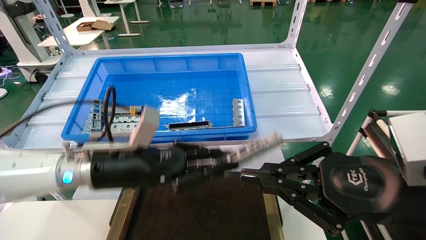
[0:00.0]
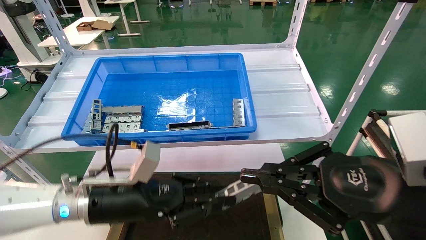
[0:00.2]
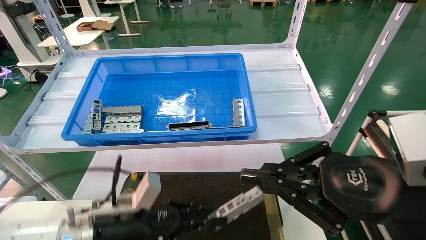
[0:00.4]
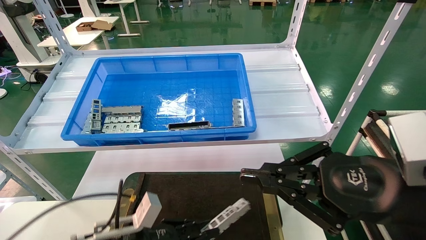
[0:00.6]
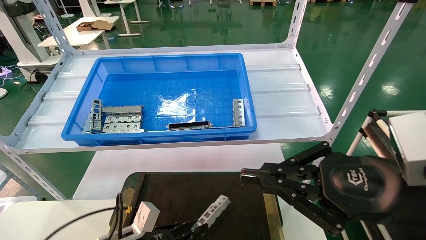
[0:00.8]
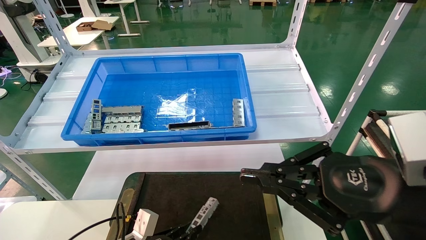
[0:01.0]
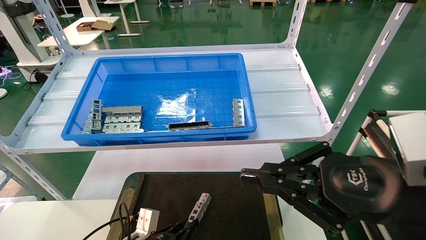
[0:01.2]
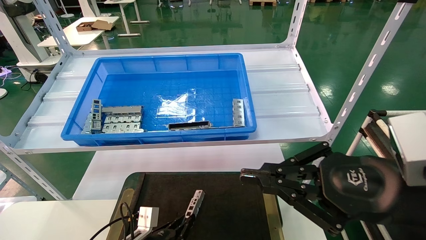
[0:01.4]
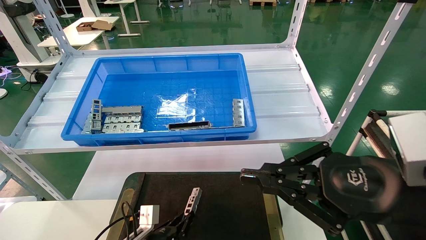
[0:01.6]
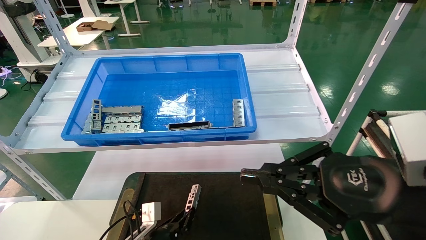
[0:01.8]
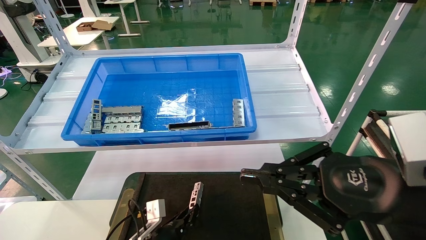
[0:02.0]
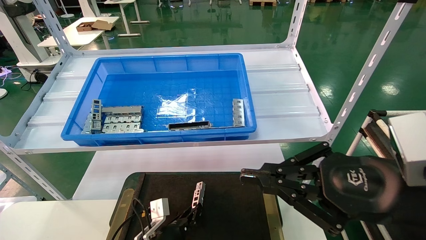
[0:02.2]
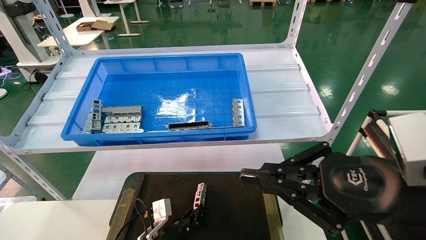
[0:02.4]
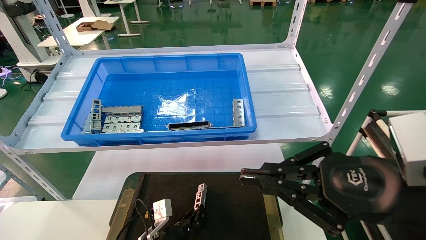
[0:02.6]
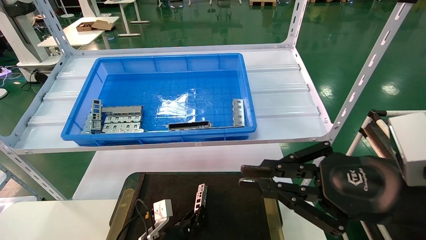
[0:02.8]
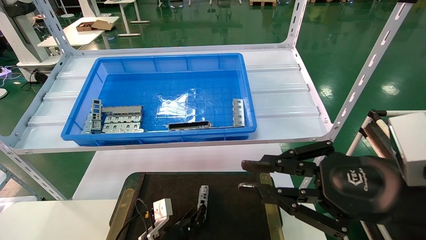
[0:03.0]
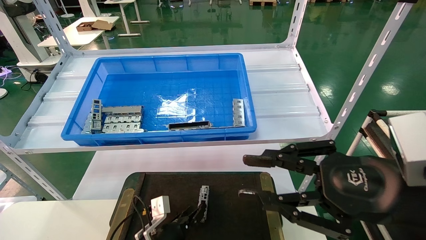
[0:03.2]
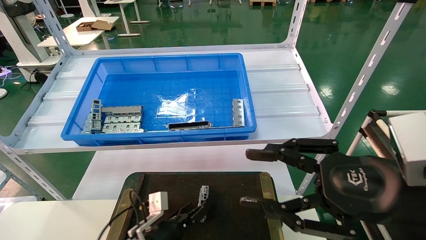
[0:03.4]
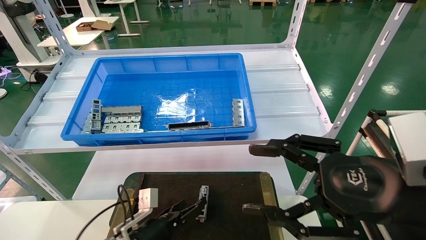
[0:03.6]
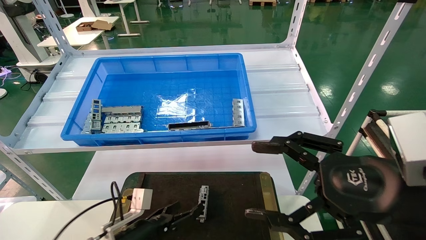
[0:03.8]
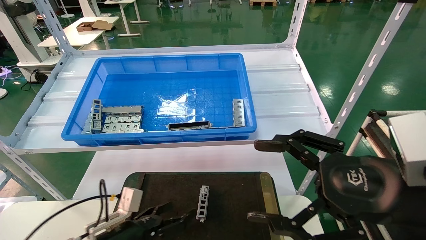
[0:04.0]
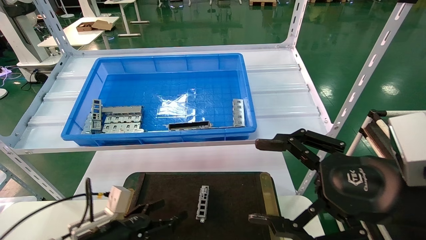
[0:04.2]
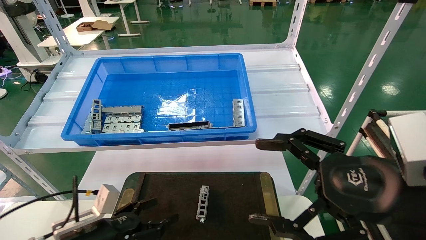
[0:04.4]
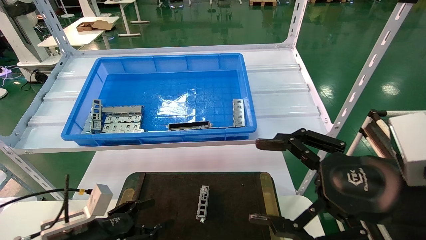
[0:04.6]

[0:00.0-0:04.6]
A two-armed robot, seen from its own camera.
Task of the whole recording: Grasp the part with one hand and place it on the black container.
Step, 0:00.0 to 0:03.2: Place the front USB bracket into the box.
0:00.0 to 0:01.6: The left gripper moves downward, roughly 25 cm.
0:01.6 to 0:03.0: The grippers move only a little.
0:03.0 to 0:04.6: The right gripper opens. Meanwhile the left gripper travels to the left, upward and backward by about 20 cm, and opens up.
